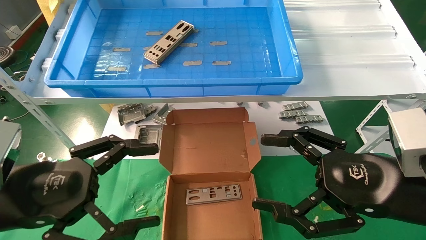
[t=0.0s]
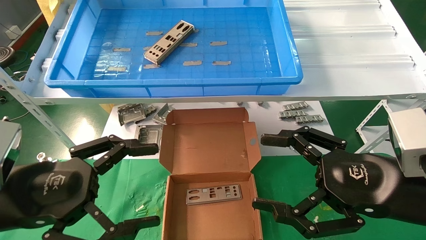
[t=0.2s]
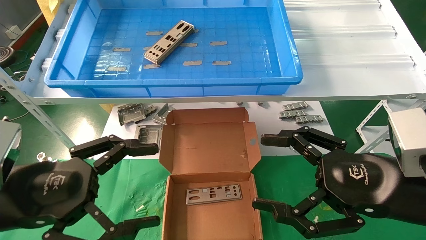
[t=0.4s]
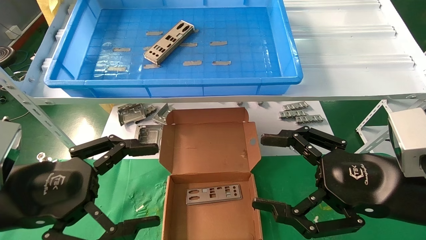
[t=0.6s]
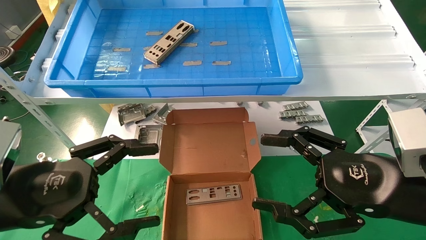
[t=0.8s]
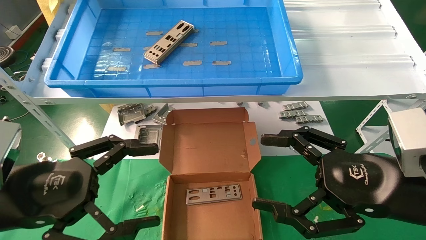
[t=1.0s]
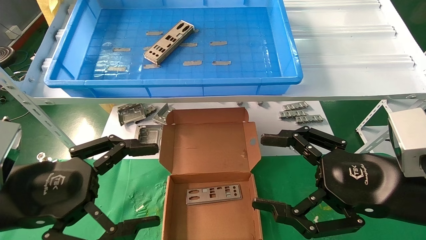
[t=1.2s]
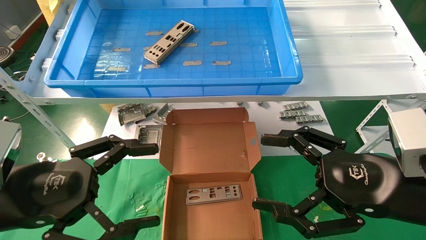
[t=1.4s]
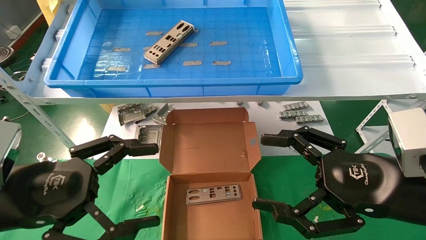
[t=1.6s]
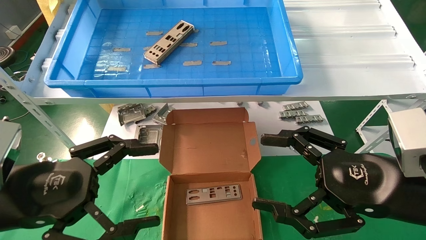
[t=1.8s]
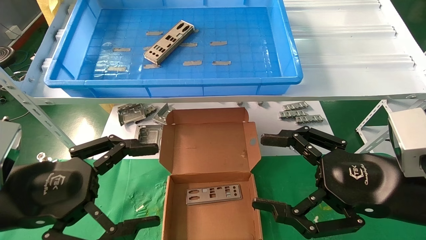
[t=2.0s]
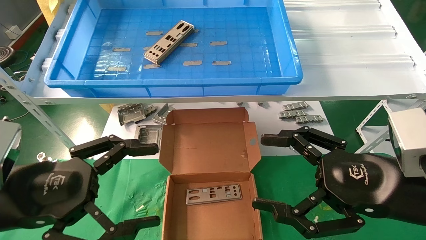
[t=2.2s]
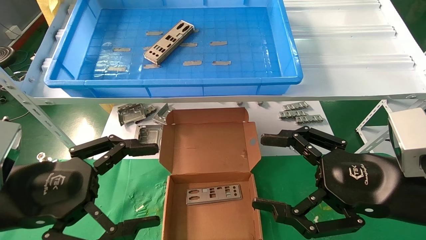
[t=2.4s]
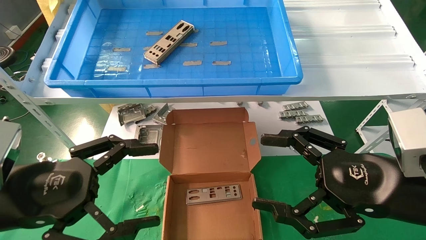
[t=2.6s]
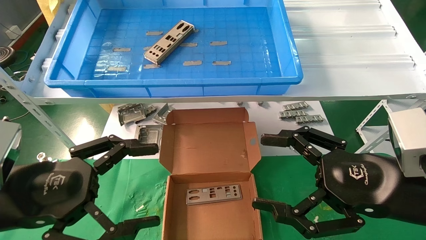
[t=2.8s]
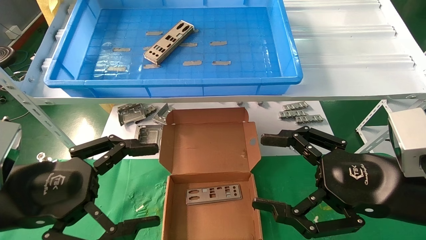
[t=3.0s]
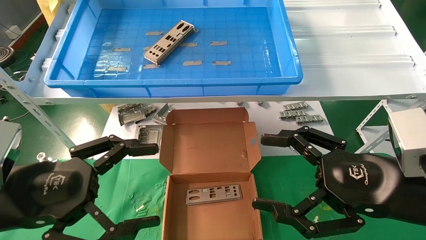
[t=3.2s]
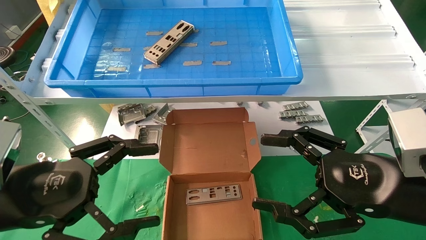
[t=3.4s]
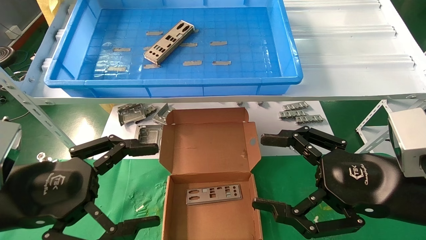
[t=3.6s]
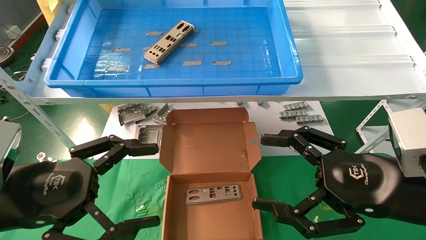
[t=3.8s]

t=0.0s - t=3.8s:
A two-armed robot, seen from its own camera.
Task of the whole recording: pick up the parts on the tray and put them in the cardboard box.
t=0.0s - t=3.8s: The two grippers keep their place.
